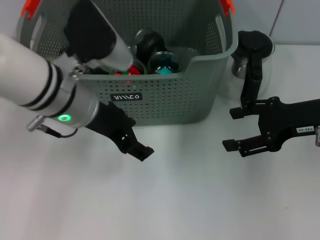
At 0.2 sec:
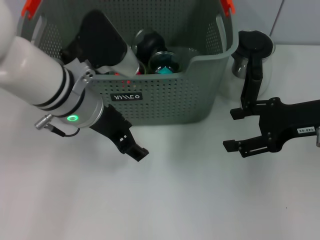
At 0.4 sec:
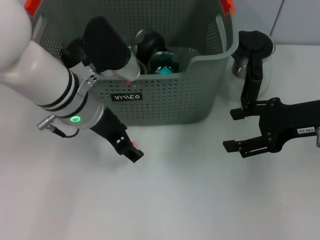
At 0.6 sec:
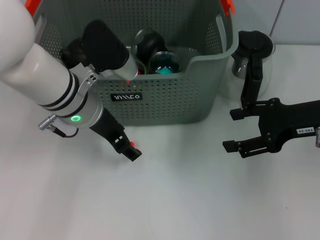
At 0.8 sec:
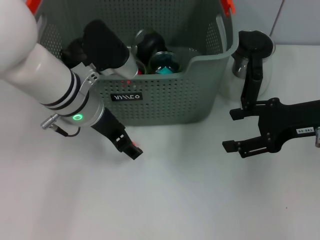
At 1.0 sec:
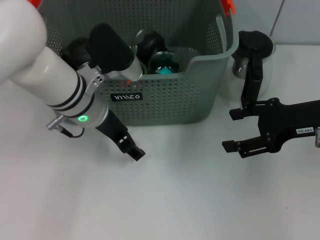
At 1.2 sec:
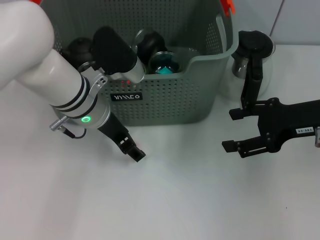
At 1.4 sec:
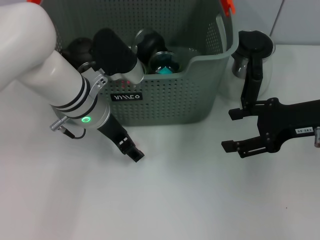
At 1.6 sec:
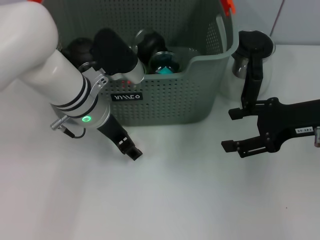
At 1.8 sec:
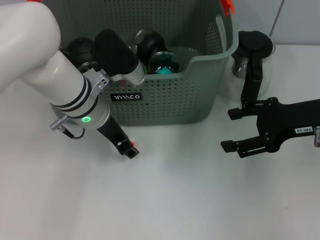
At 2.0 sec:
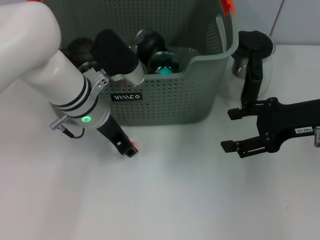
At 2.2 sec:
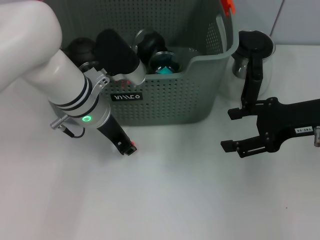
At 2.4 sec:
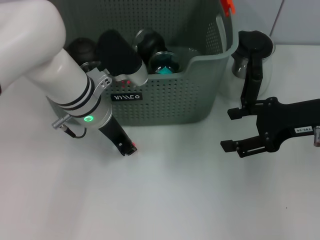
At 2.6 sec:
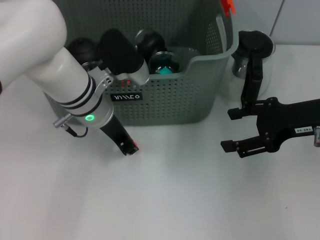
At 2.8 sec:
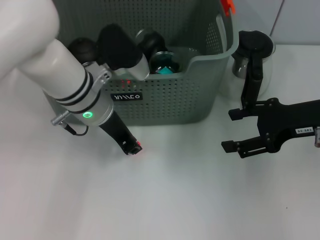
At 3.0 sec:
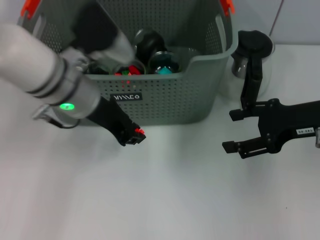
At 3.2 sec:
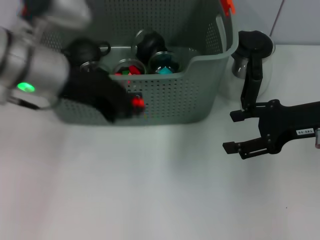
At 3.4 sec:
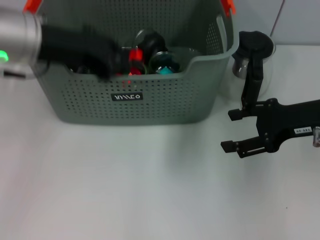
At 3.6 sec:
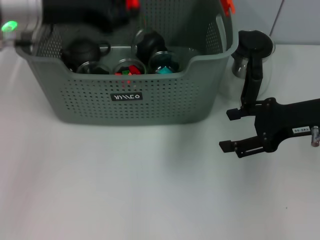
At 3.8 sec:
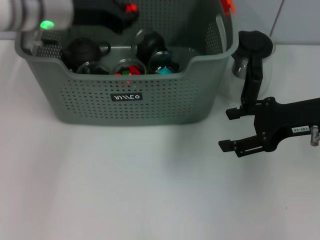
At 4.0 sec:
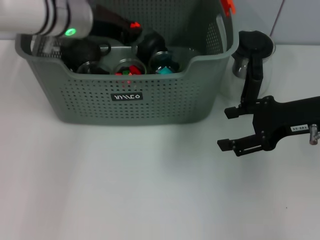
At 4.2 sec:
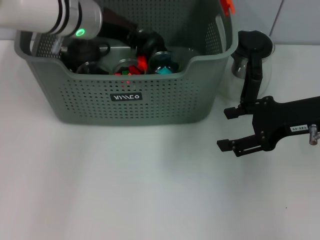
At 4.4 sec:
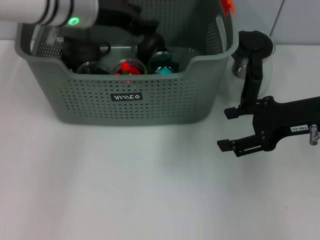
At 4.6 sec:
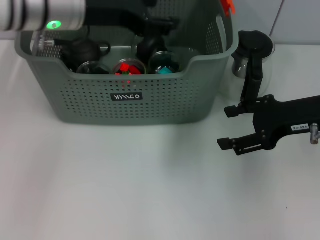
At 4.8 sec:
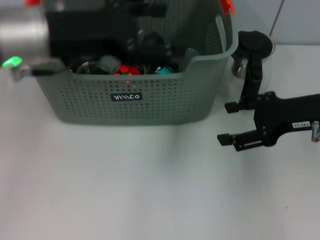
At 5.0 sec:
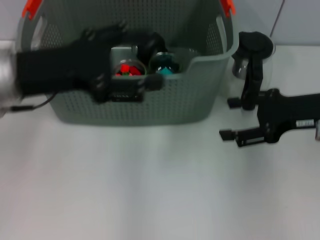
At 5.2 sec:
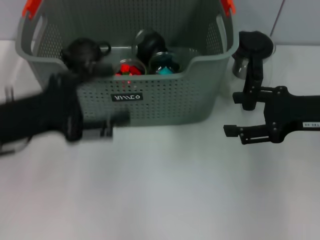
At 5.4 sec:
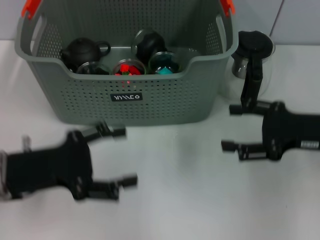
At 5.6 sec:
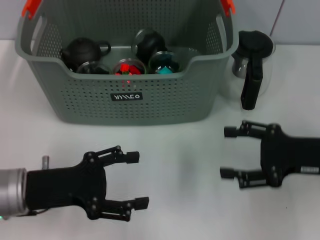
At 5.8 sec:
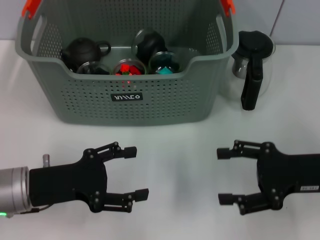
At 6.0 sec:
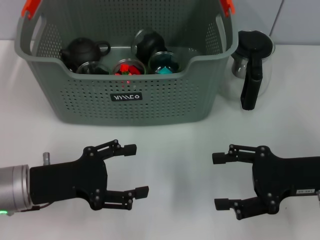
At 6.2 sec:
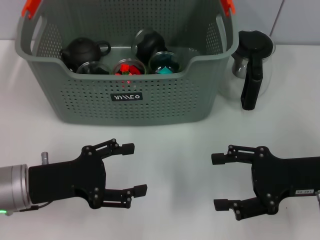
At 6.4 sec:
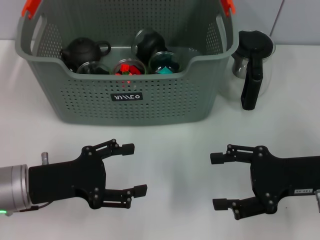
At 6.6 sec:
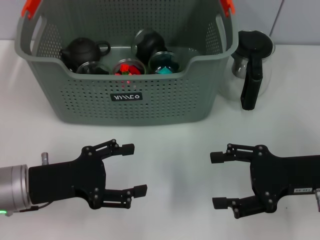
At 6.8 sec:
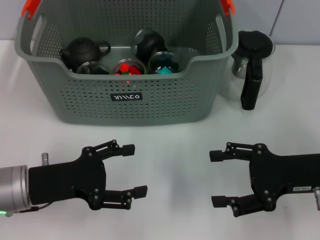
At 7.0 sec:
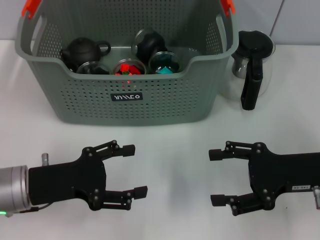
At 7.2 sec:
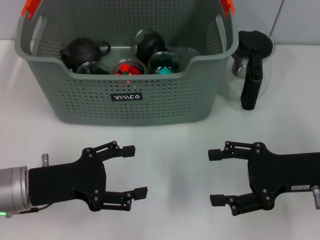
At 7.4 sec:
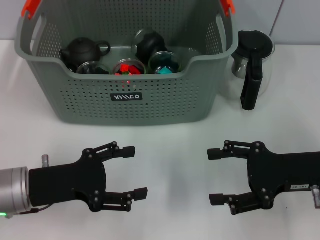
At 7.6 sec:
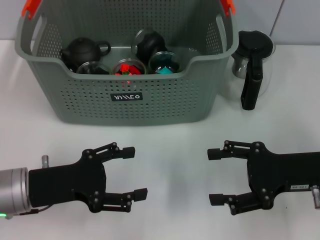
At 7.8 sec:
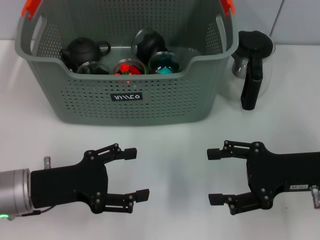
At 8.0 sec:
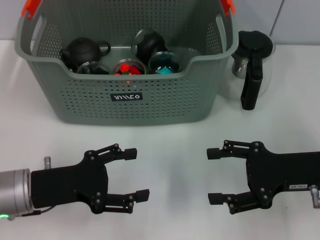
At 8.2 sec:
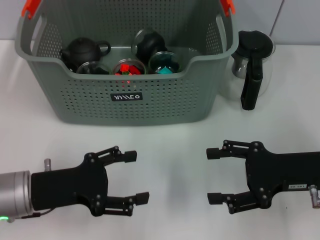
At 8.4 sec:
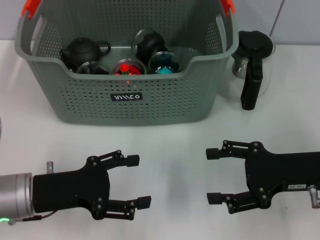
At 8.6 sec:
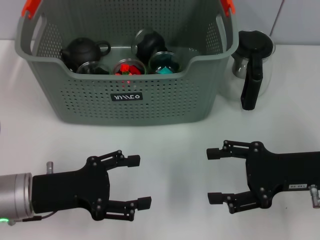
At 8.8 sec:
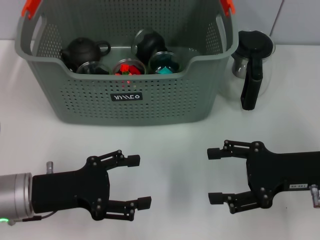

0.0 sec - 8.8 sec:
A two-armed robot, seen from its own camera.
Task of the whole recording: pick up the teacup on the table and place it into the storage bin, pick up the block on the table and place it into the storage bin.
Step, 0.0 sec - 2.8 sec: Grasp the orange block with left gripper.
Step, 3.0 sec - 4.2 sec: Place the orange block in the storage box with left gripper.
0.0 sec - 1.4 sec: The left gripper shifts some 5 cm downward.
1.4 sec - 3.0 sec: The left gripper travels upward by some 5 cm, and closes its fingers.
3.0 sec - 4.4 sec: The left gripper moves forward, about 5 cm.
4.4 sec - 5.8 sec: The left gripper heads backward, downward and to the left, covering about 25 cm, and opens up. The right gripper goes approximately 10 cm backward and downward.
5.8 sec - 7.4 sec: Both grippers stay about where they are.
7.4 sec - 8.8 sec: Neither gripper changes place.
